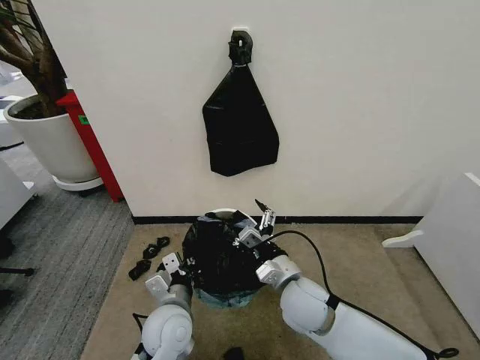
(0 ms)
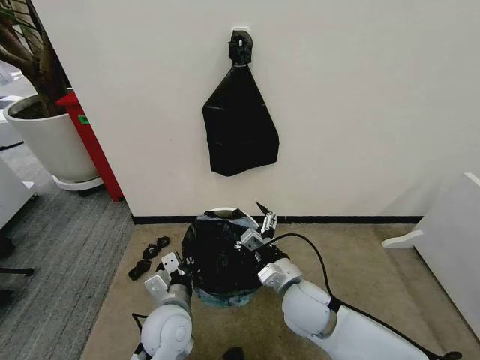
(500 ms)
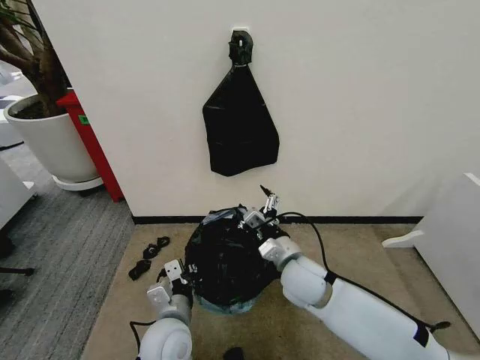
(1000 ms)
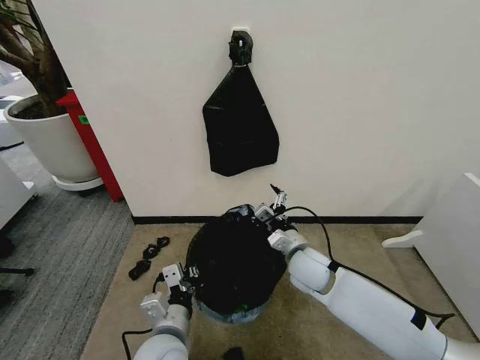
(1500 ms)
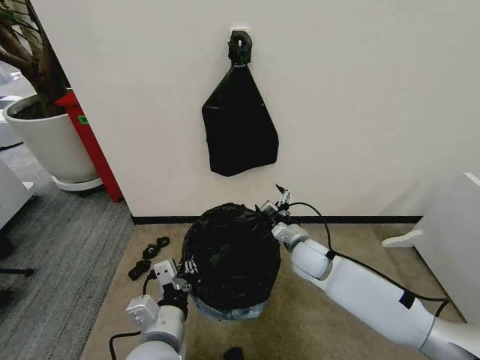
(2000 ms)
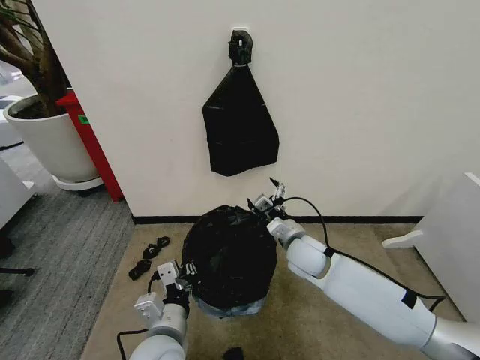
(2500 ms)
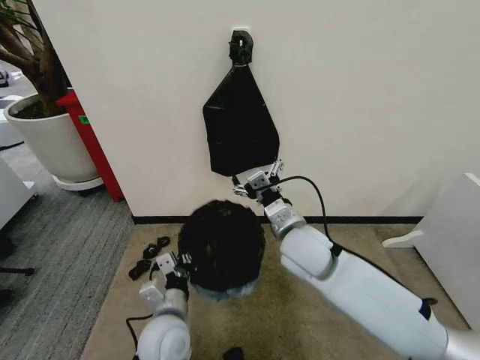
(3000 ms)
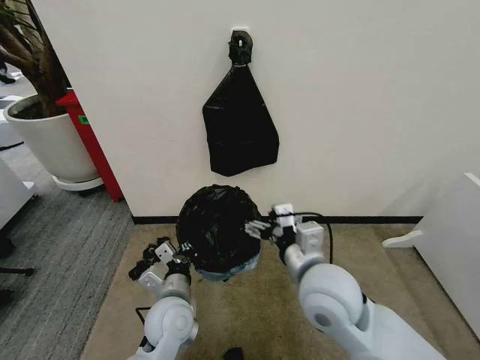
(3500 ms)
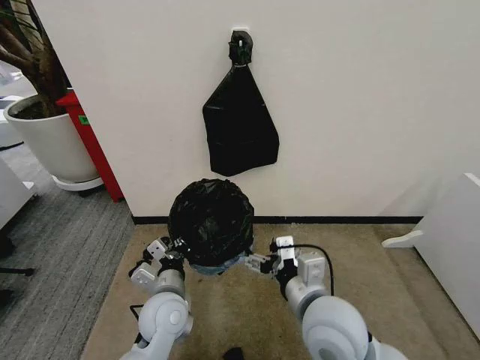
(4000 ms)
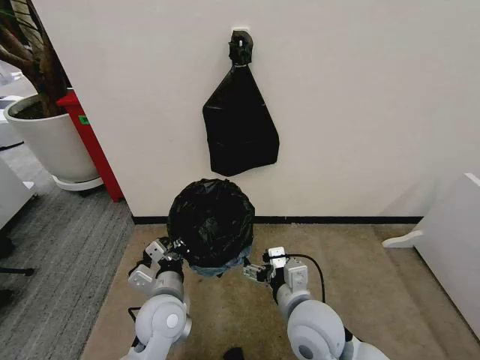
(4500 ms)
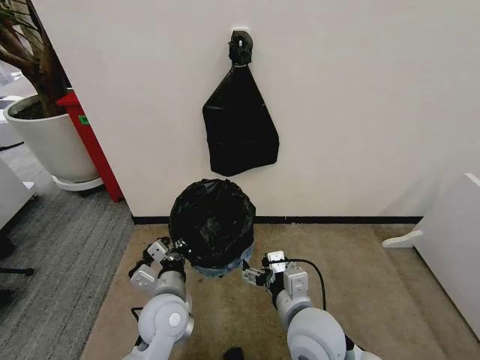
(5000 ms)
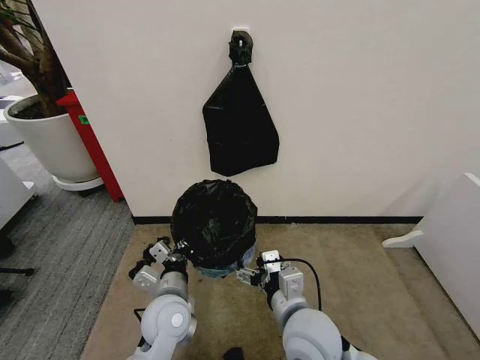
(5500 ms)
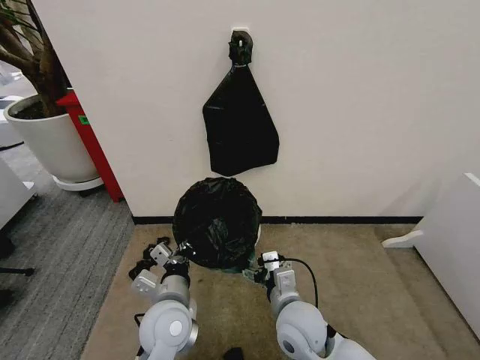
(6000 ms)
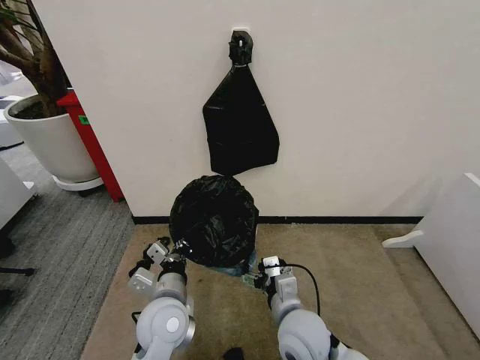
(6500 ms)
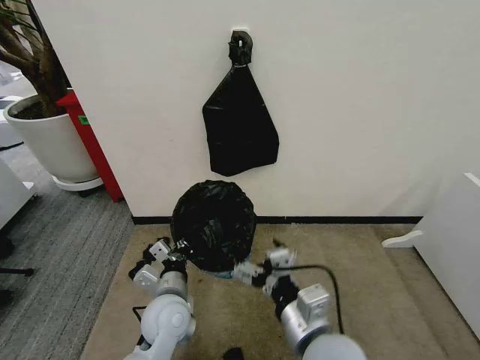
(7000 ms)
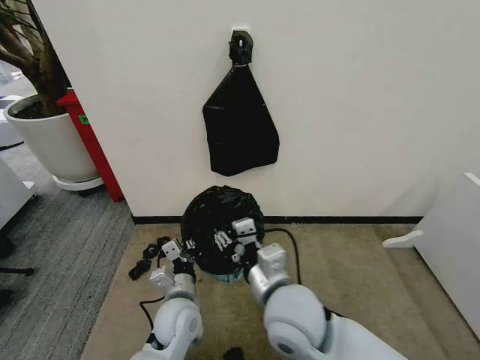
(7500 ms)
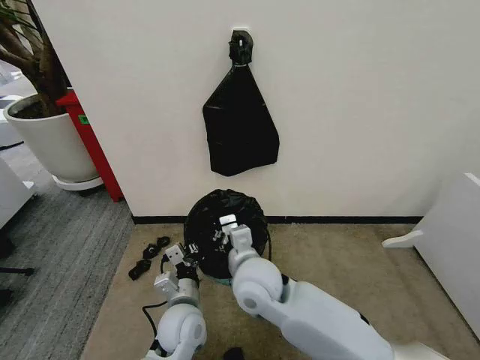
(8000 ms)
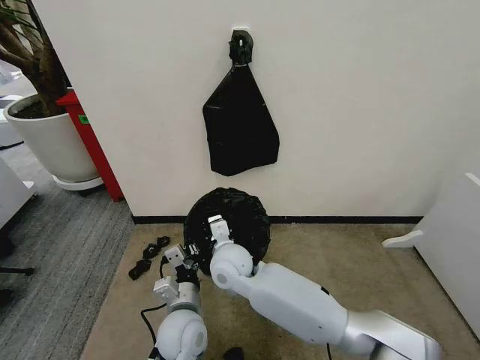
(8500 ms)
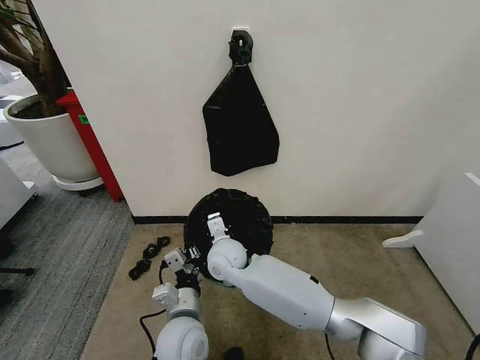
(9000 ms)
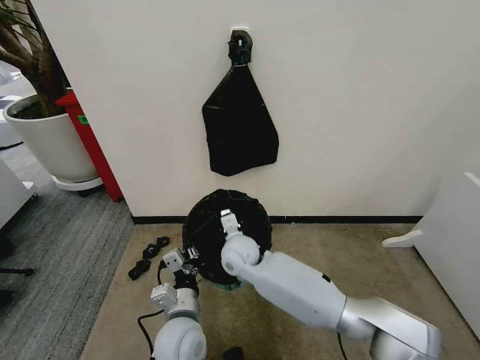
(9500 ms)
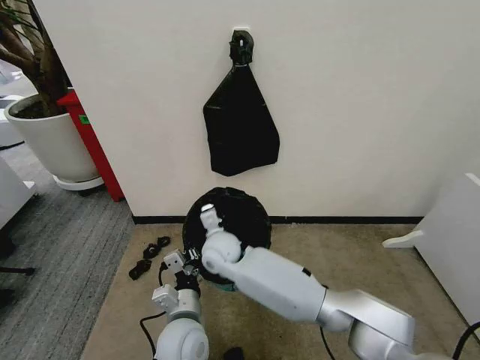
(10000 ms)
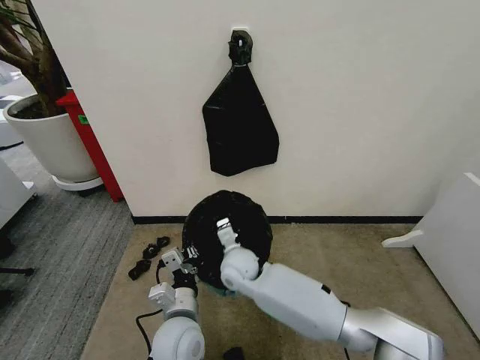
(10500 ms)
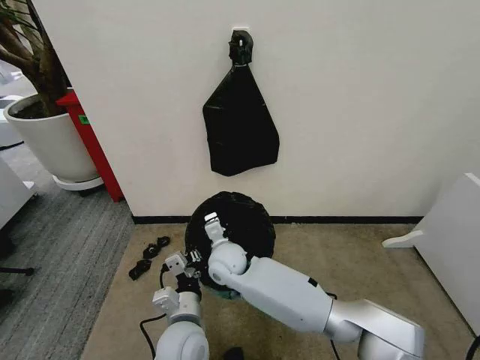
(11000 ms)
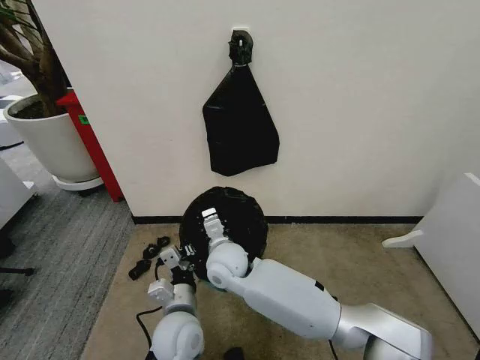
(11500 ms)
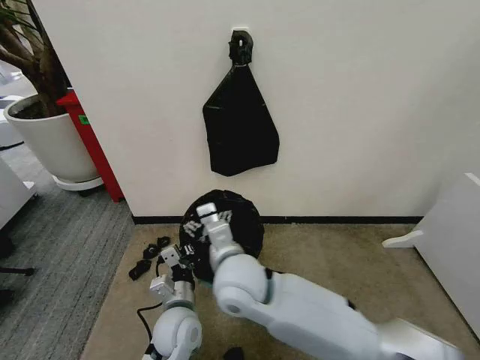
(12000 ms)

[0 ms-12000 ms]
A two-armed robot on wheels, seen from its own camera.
Task of the whole recording: Place the garbage bag over the trash bin.
0 ms to 2000 ms: The right gripper is displaced forward by some 10 cm. Meanwhile the left gripper heads backward and upward, covering some 10 cm.
2000 ms to 4000 ms: The right gripper is displaced backward and upward by about 25 cm. Meanwhile the left gripper shifts approximately 10 cm forward.
4000 ms to 6000 ms: The right gripper heads downward, covering approximately 10 cm.
6000 ms to 8000 ms: The left gripper is displaced downward by approximately 5 cm, while the right gripper travels to the left, upward and forward by about 10 cm, and closes up.
8000 ms to 10000 ms: The right gripper moves forward, to the left and downward, roughly 15 cm.
10000 ms to 12000 ms: The right gripper travels backward and upward by some 15 cm, and opens.

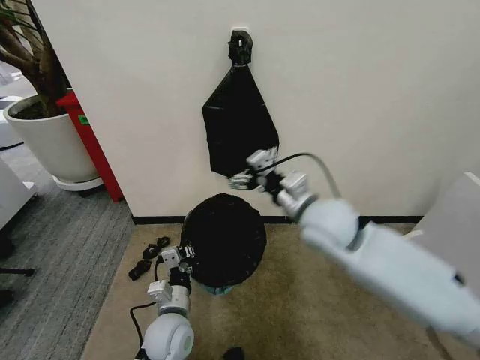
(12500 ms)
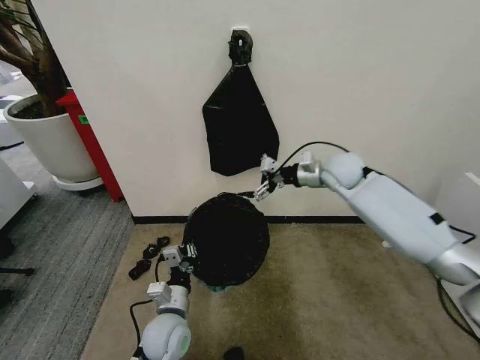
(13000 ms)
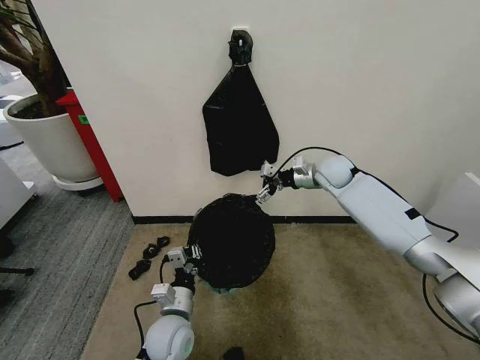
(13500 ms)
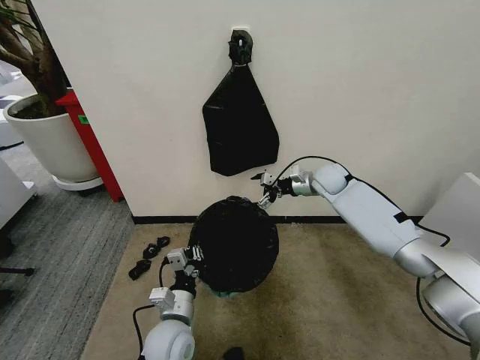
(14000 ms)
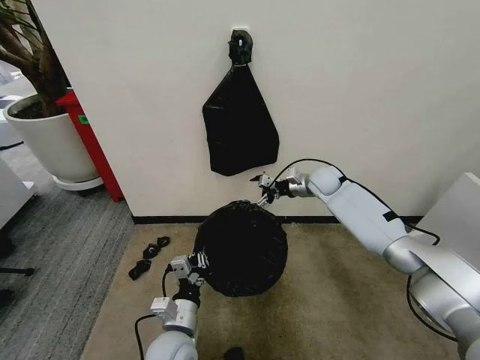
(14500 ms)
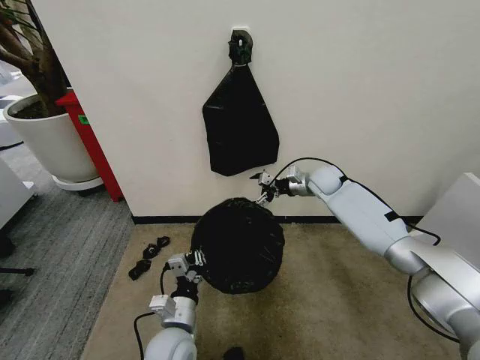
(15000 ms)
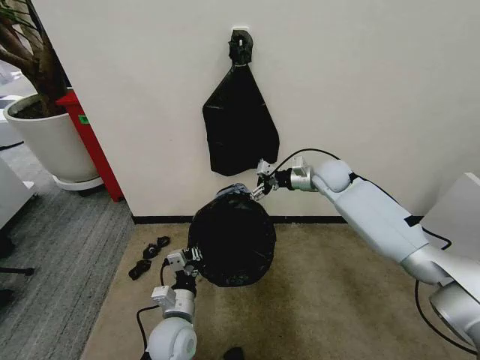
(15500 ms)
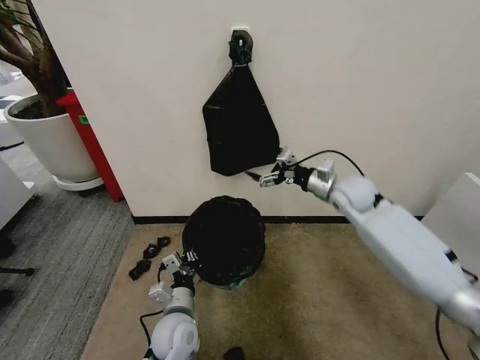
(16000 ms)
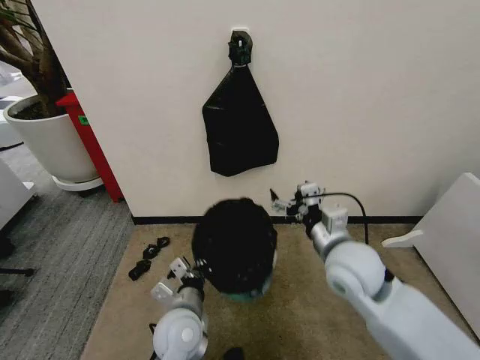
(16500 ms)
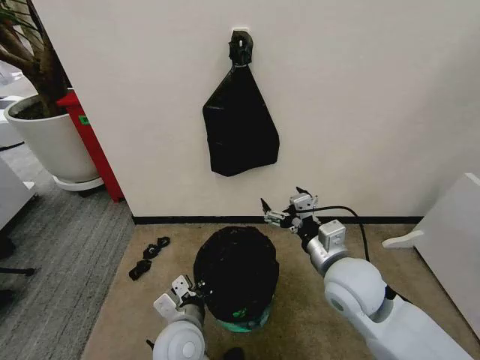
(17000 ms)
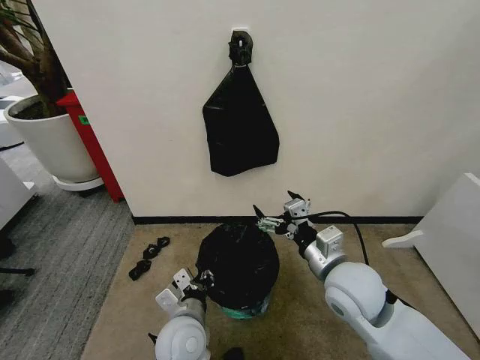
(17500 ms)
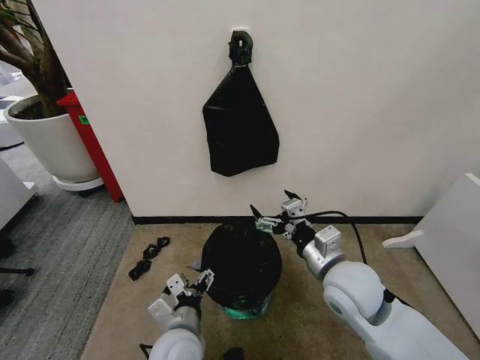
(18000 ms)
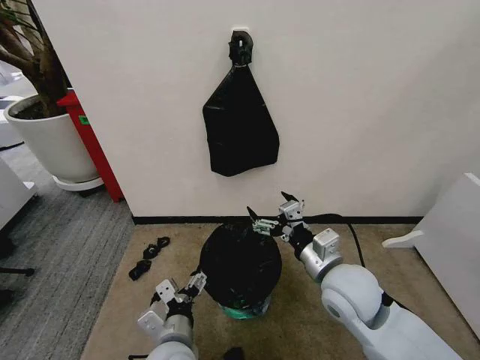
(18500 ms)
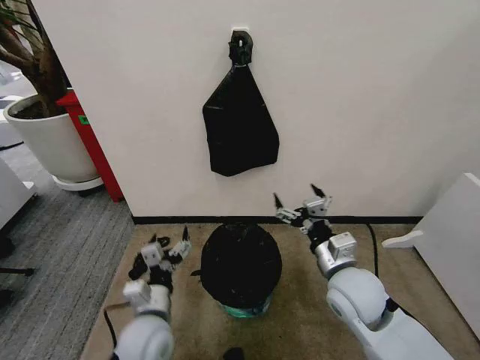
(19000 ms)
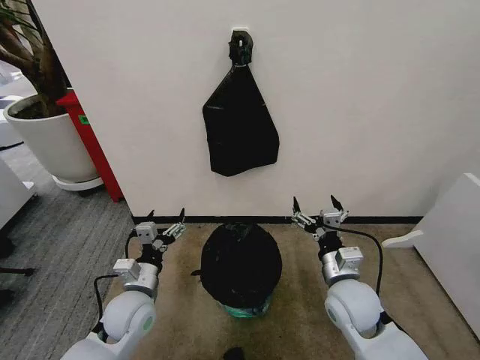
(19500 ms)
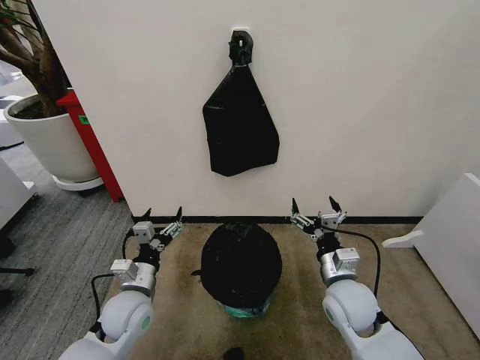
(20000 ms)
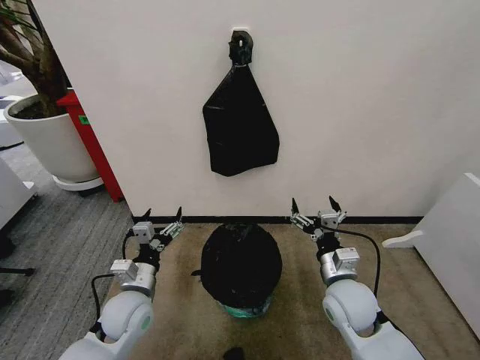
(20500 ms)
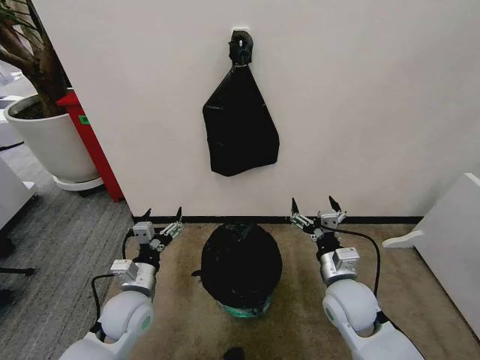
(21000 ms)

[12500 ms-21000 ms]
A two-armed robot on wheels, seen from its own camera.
Task of the whole recording: Place the garbage bag over the trash bin.
12500 ms to 14500 ms: The right gripper moves forward and downward, approximately 25 cm.
14500 ms to 16500 ms: The right gripper goes about 30 cm backward.
16500 ms to 19000 ms: The left gripper shifts approximately 5 cm to the left, and opens its fingers; the right gripper shifts by approximately 5 cm.
19000 ms to 21000 ms: The left gripper travels to the left and forward by about 10 cm. Meanwhile the right gripper goes approximately 5 cm downward.

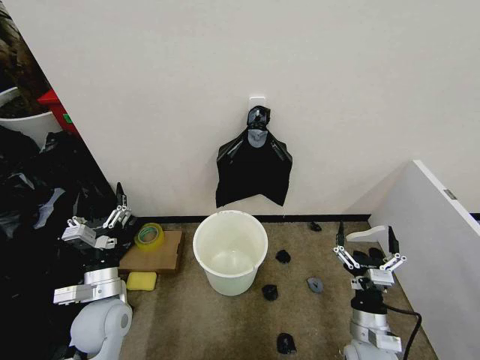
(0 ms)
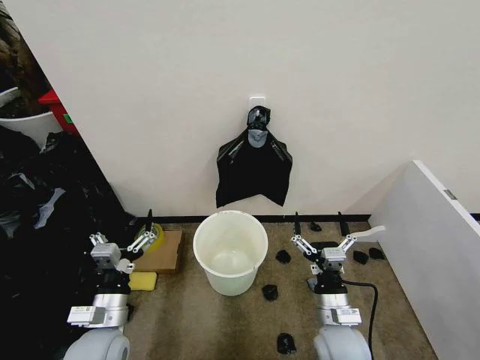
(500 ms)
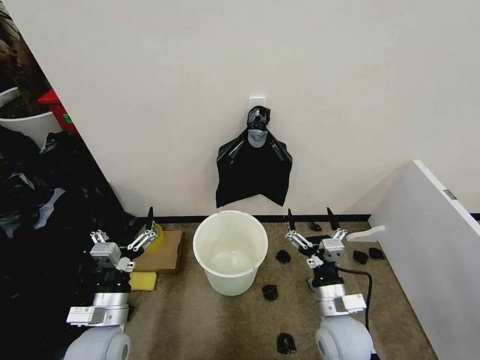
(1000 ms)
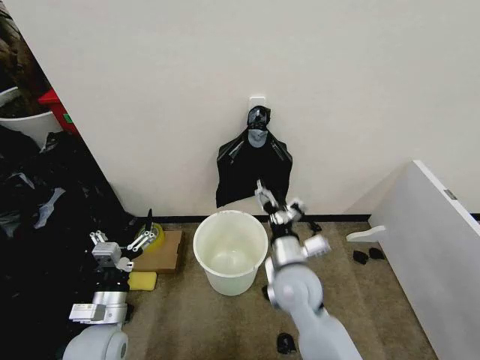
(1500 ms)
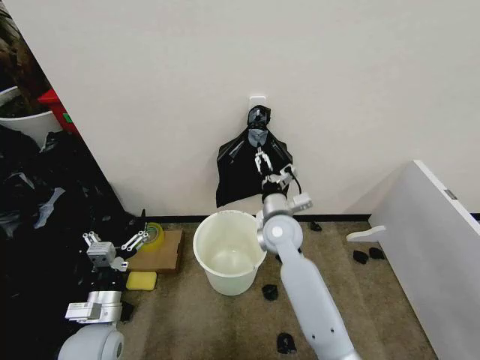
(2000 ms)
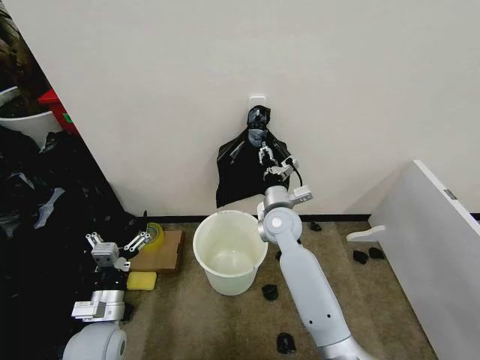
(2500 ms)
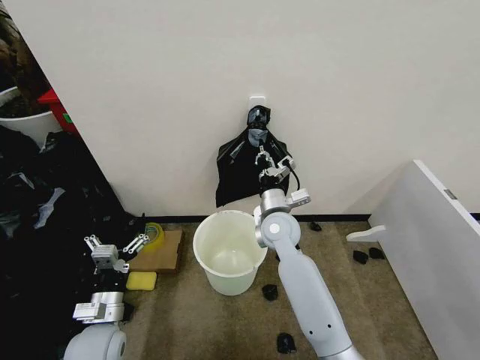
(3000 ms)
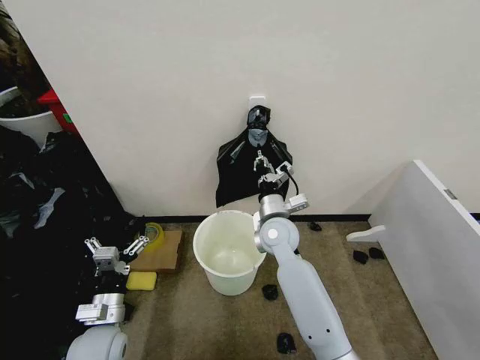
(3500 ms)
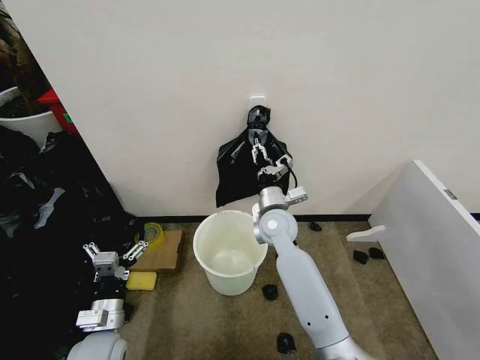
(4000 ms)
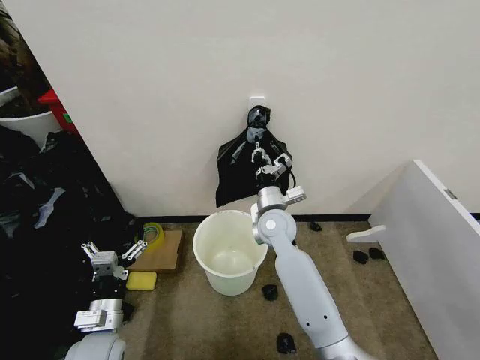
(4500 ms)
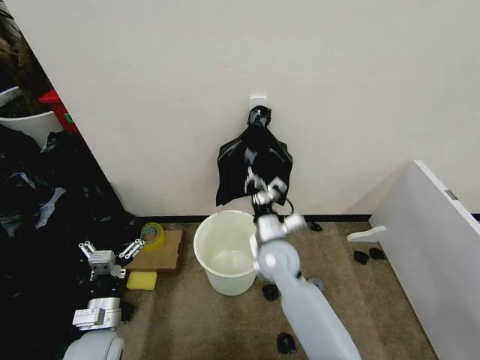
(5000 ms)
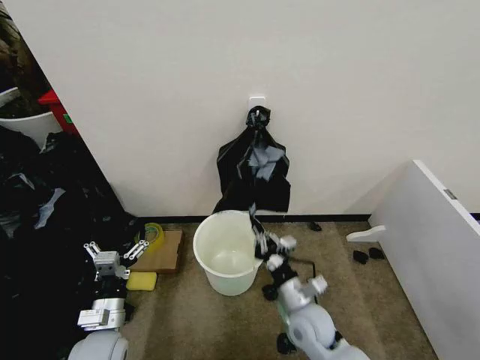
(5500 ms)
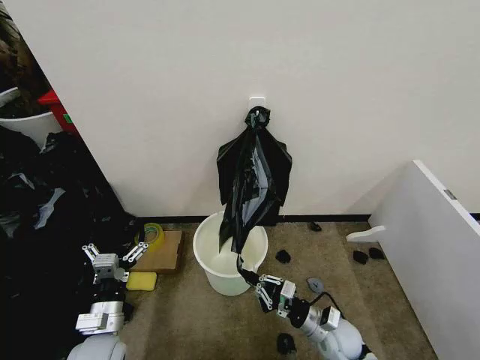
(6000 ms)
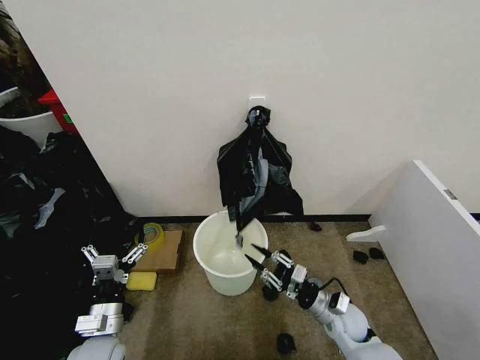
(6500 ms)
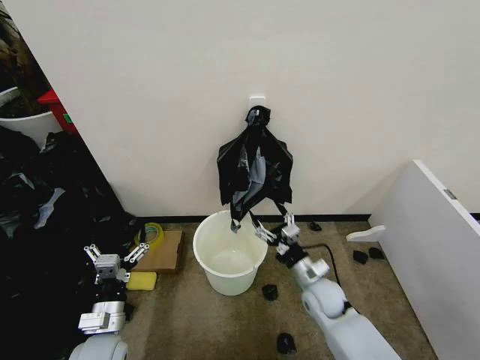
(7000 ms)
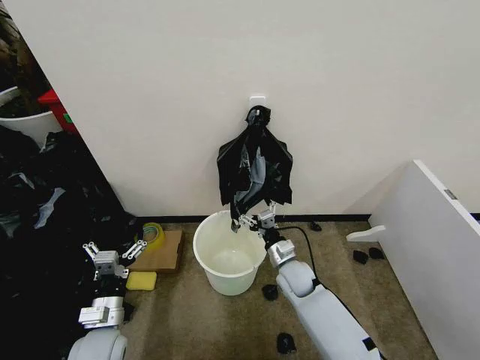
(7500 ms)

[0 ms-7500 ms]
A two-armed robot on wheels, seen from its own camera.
Task of the whole recording: Place the garbage bag over the trash bin.
2000 ms to 4000 ms: The right gripper closes, then opens again.
4000 ms to 5500 ms: The right gripper goes approximately 20 cm backward and downward, and closes its fingers.
5500 ms to 7500 ms: The right gripper goes approximately 10 cm forward, and opens up.
